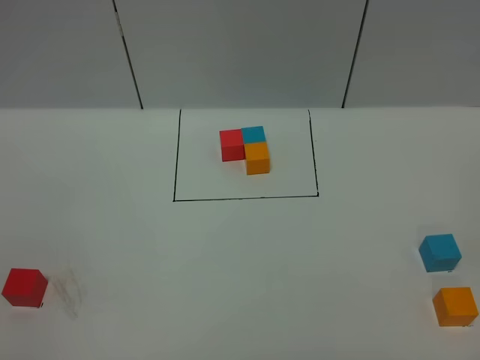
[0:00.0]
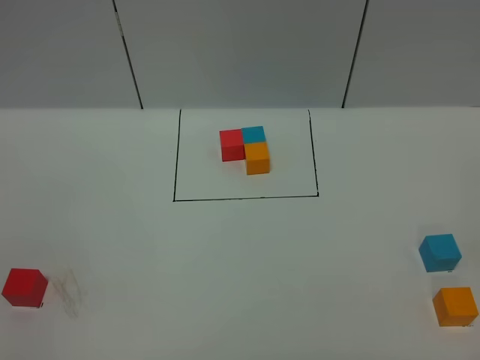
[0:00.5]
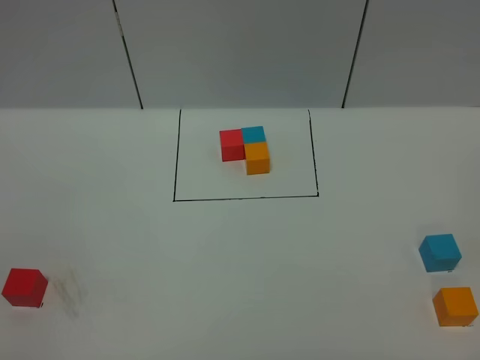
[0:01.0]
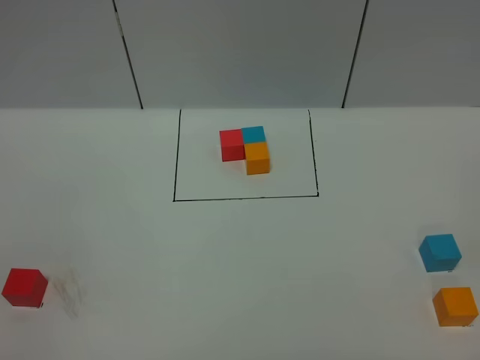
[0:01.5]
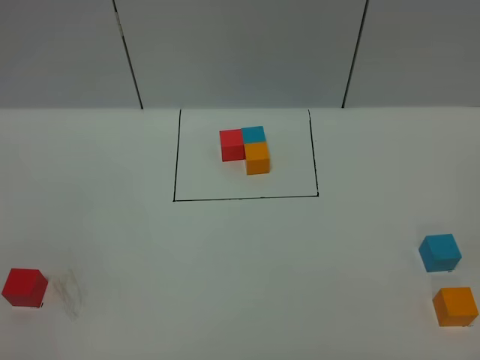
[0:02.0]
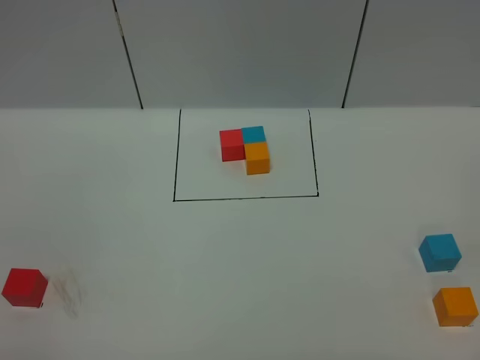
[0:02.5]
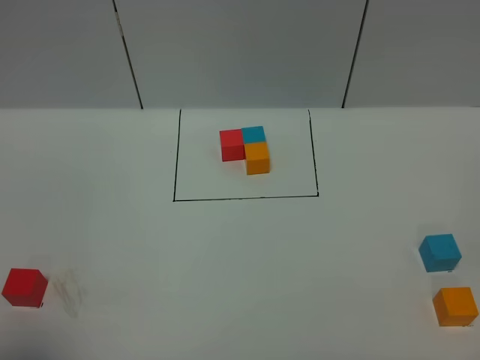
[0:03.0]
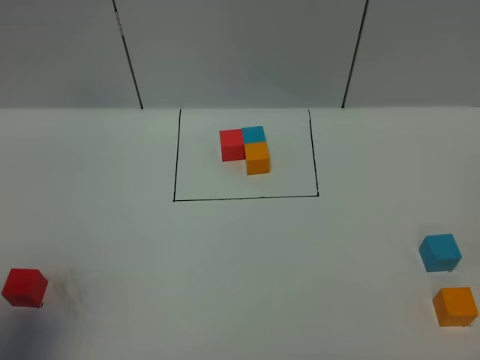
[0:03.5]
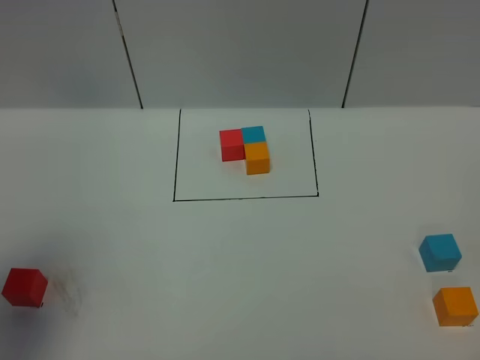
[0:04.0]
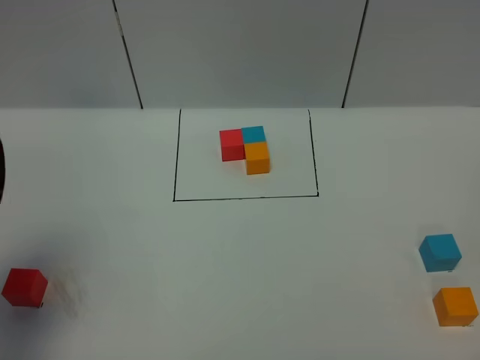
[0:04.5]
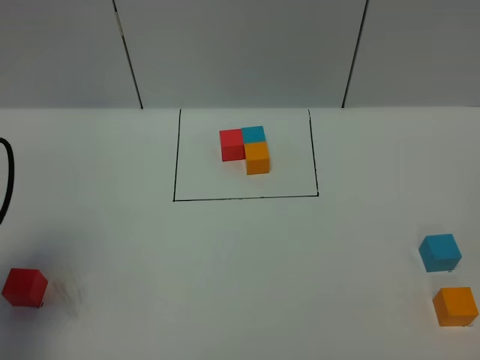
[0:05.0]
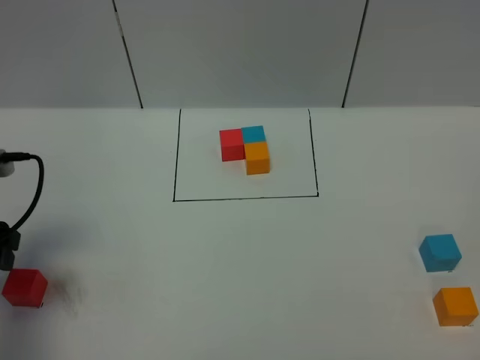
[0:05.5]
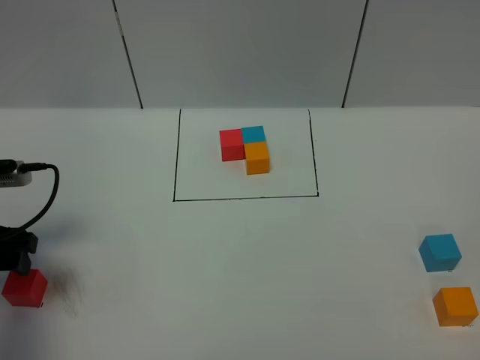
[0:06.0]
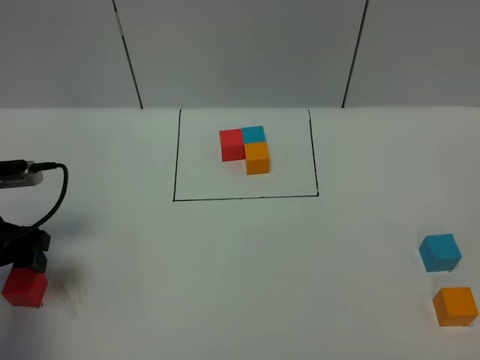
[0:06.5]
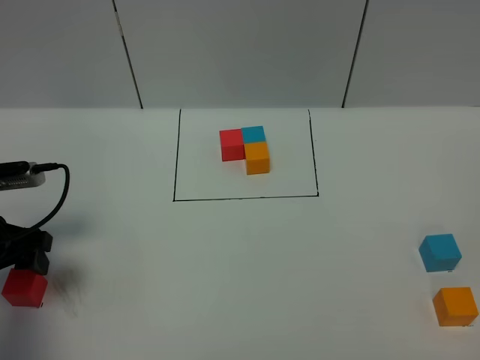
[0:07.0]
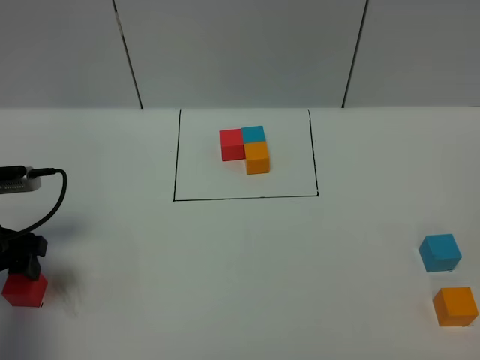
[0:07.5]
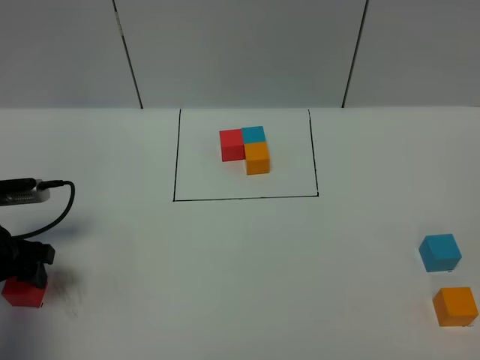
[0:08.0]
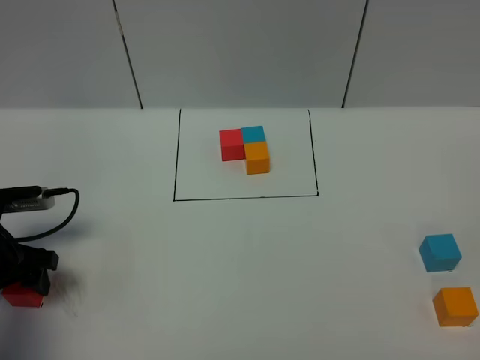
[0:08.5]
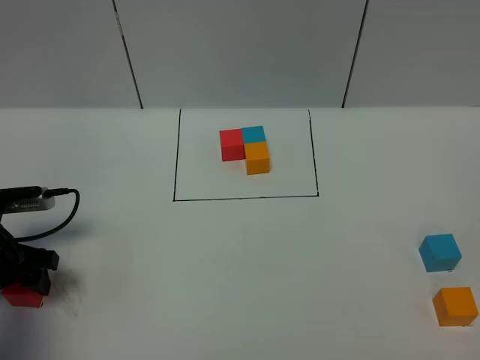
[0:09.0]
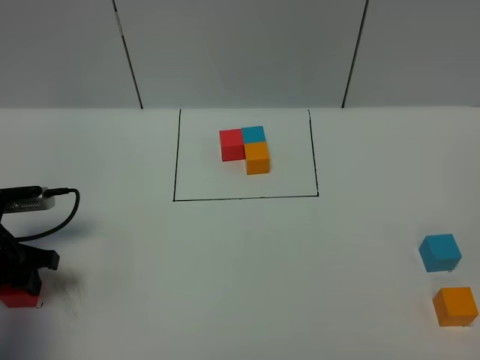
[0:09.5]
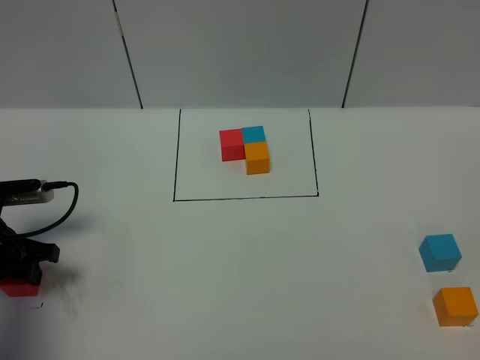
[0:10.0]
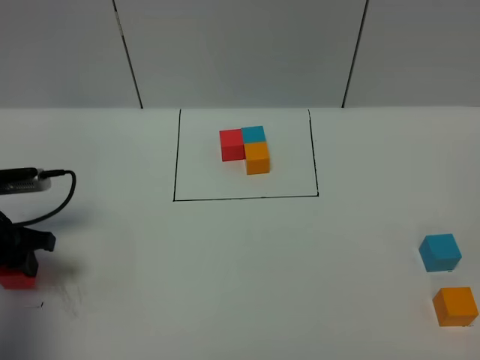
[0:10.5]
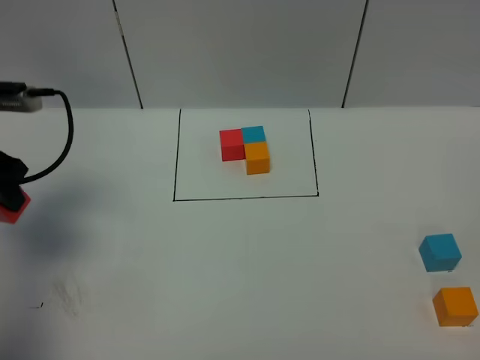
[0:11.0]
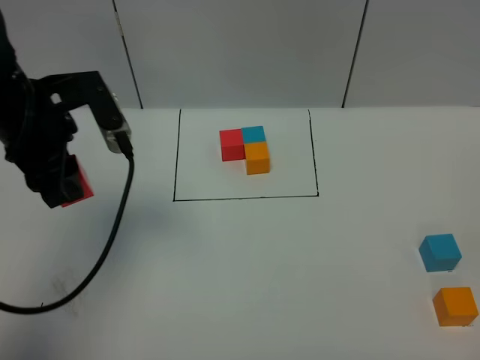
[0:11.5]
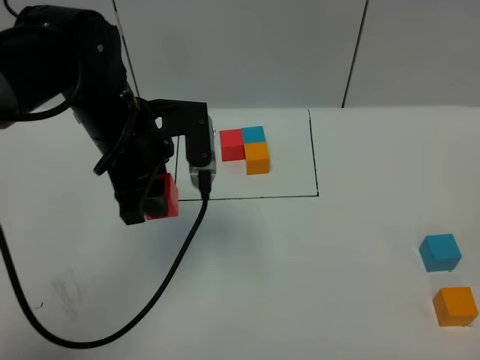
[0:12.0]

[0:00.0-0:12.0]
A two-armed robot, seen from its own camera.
Task of the whole recording: According to the building block template in front, assemble the scattered blocks together.
0:02.0 to 0:04.0: The left gripper travels forward by some 20 cm.
0:04.0 to 0:06.0: The left gripper heads downward and forward, covering some 20 cm.
0:06.0 to 0:08.0: The grippers stay close to where they were, moving slightly.
0:08.0 to 0:10.0: The left gripper closes up.
0:10.0 to 0:12.0: The left gripper moves to the right and upward, some 25 cm.

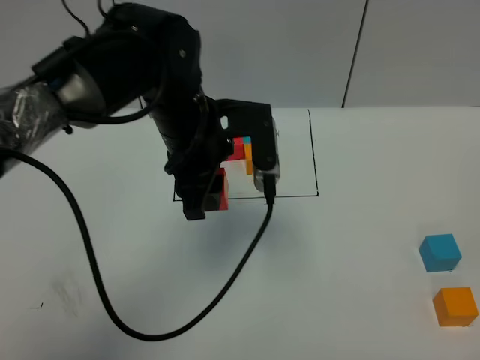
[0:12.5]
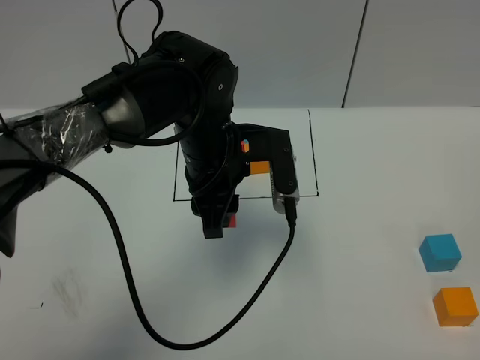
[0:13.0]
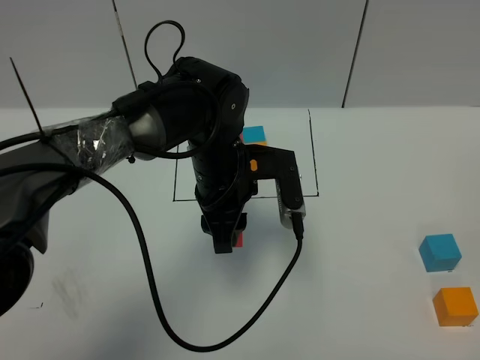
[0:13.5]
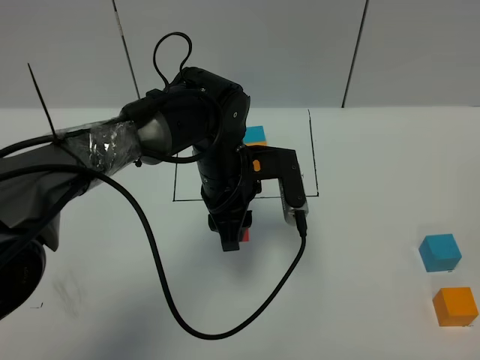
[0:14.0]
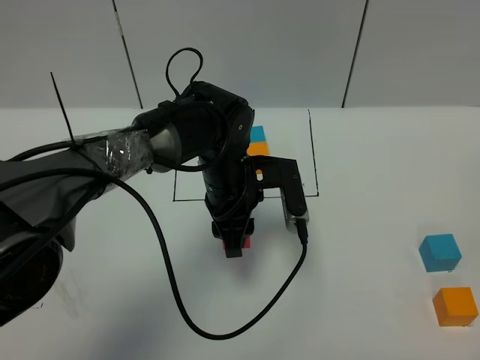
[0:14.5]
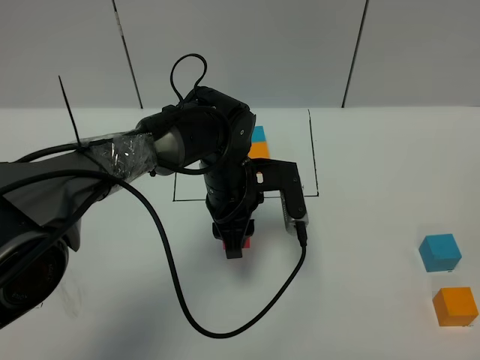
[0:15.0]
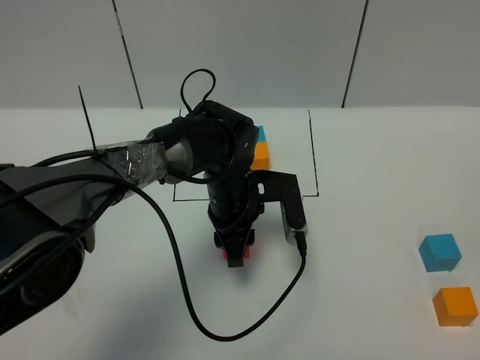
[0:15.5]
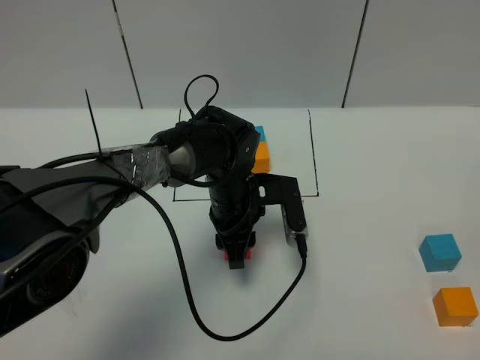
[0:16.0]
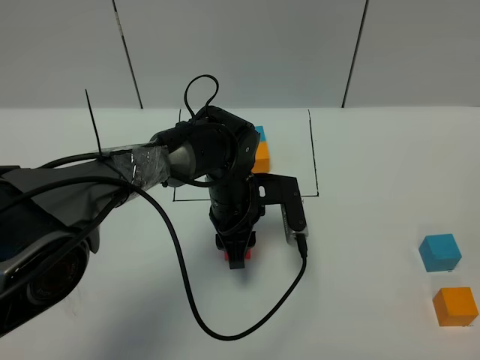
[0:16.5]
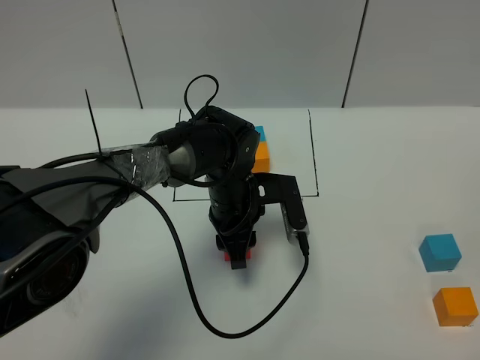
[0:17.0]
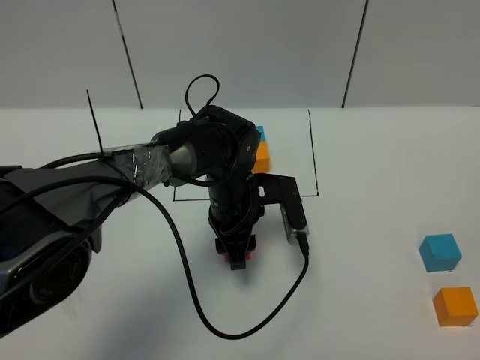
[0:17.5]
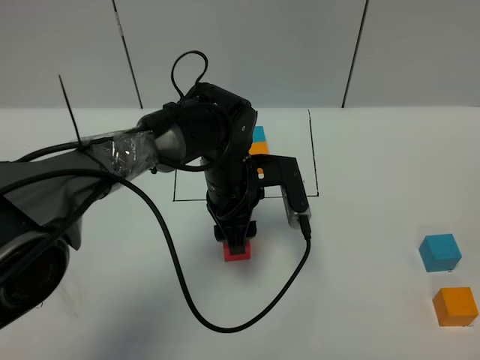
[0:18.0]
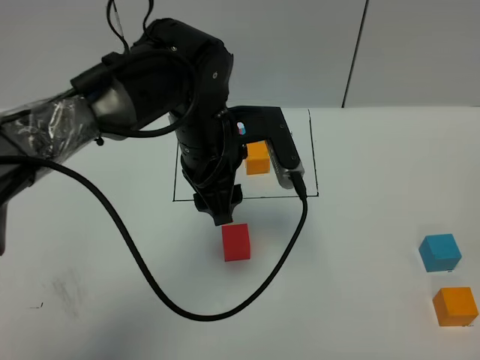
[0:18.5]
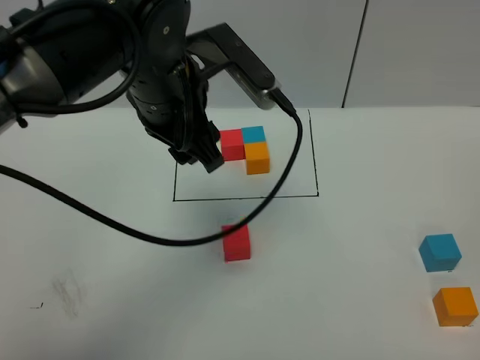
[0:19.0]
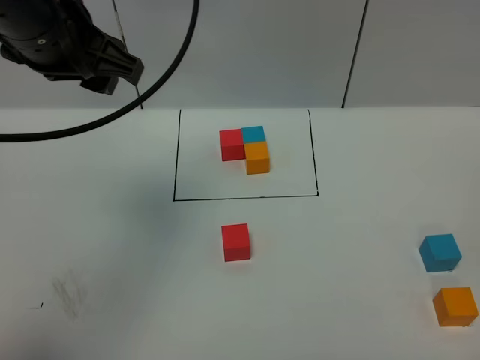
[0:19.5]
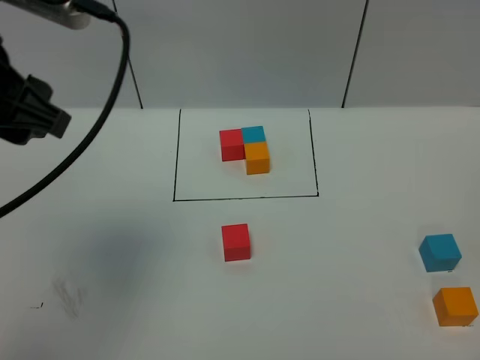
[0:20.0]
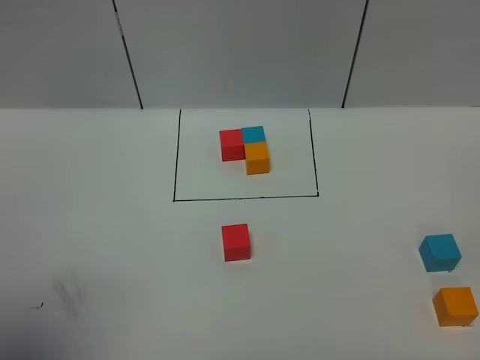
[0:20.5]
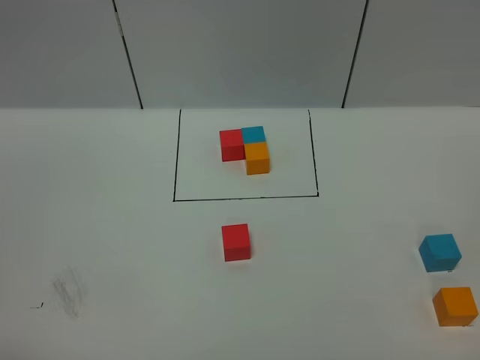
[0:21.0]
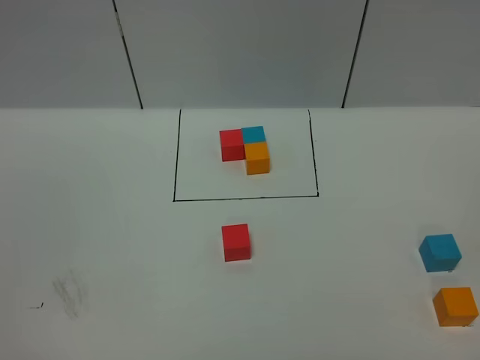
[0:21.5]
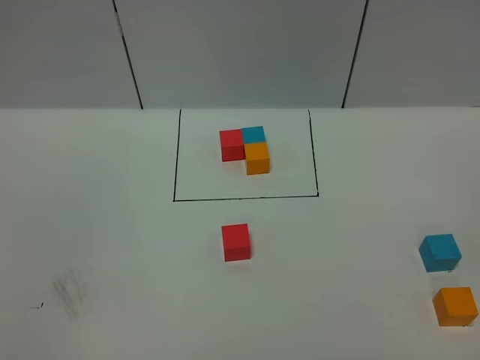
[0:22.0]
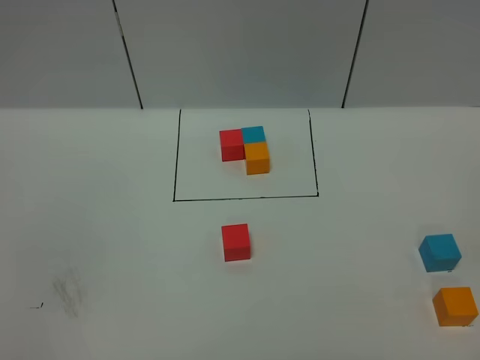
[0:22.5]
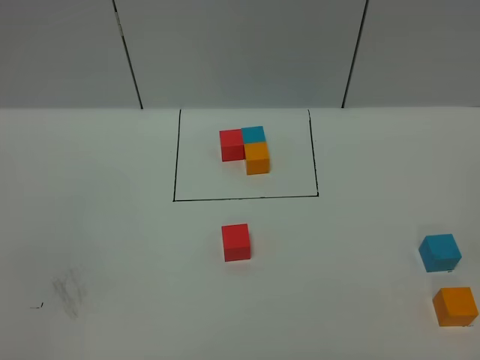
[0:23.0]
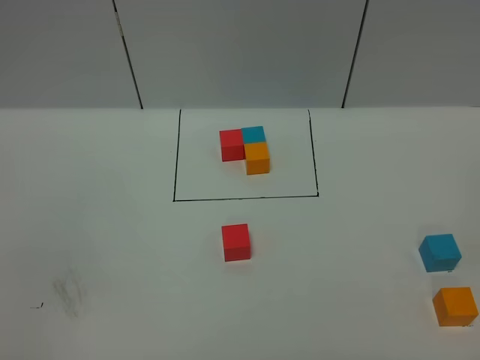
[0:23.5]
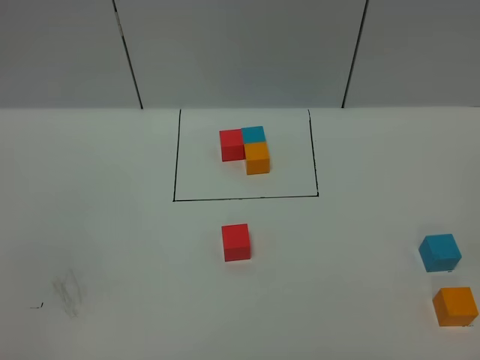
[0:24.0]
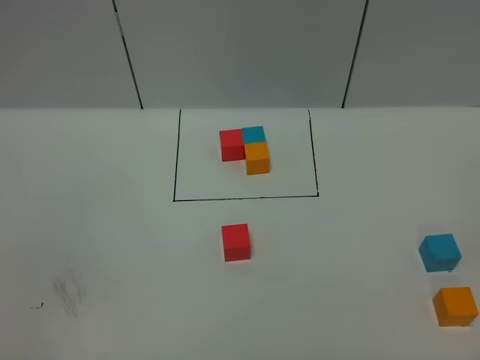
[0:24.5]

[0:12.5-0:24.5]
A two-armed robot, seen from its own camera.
Task of the whole recording: According to the building block template in front, assemble the scattered blocks together.
Step, 0:12.5 to 0:18.0: Put the red cube in the center of the table.
0:12.5 to 0:14.5: The left gripper is displaced downward by roughly 10 cm.
0:14.5 to 0:16.5: The grippers make only small movements.
0:16.5 to 0:18.5: The left gripper moves upward, roughly 15 cm, and opens.
0:18.5 to 0:20.5: The left gripper moves backward, to the left and upward, about 40 cm.
0:20.5 to 0:22.5: The left gripper is displaced downward and backward by approximately 20 cm.

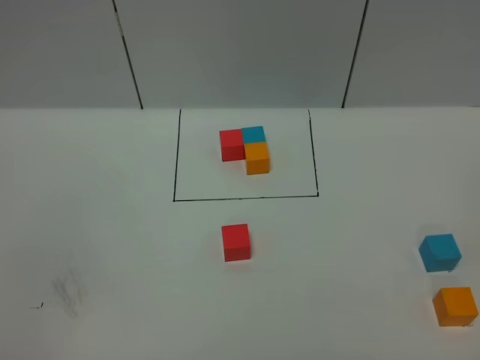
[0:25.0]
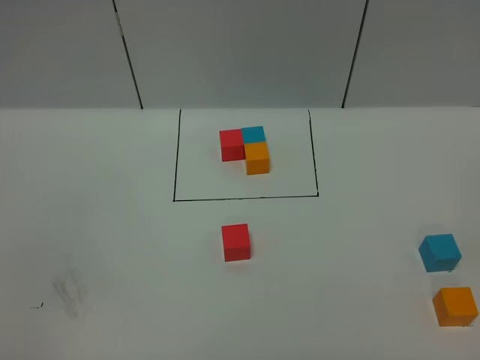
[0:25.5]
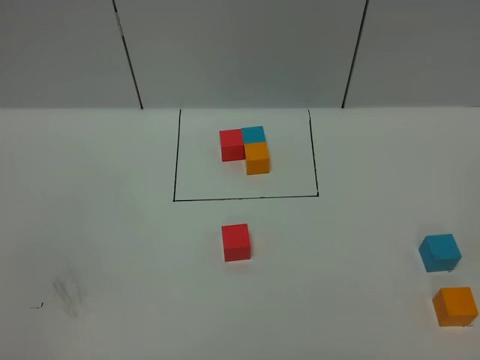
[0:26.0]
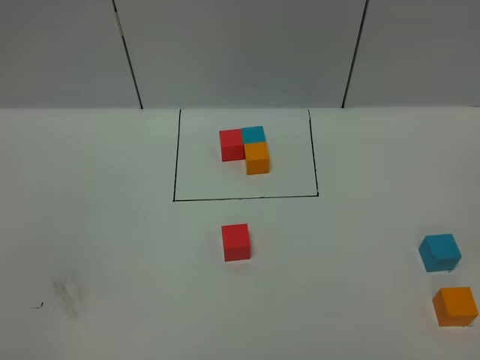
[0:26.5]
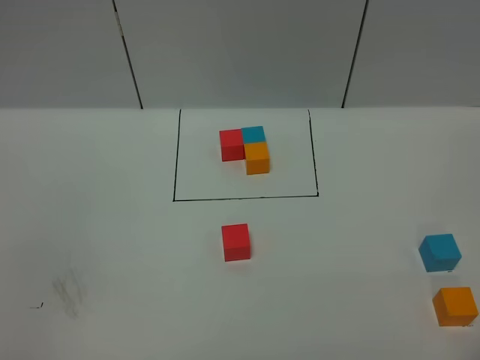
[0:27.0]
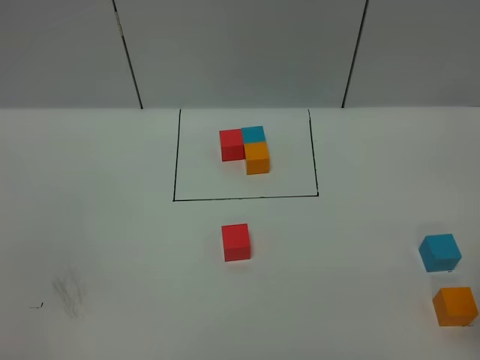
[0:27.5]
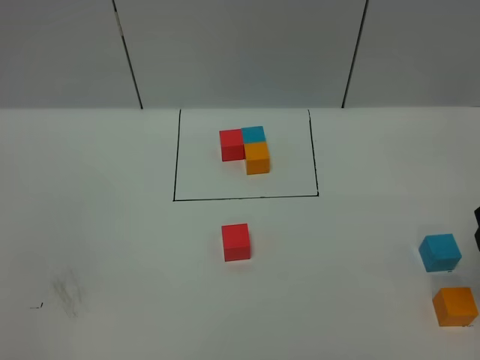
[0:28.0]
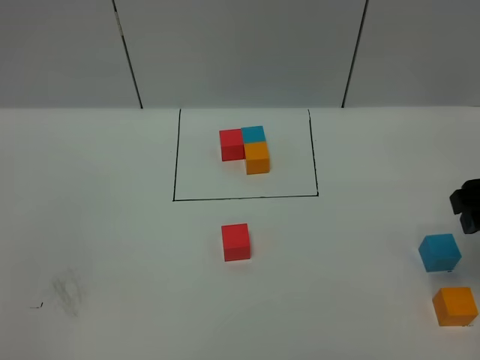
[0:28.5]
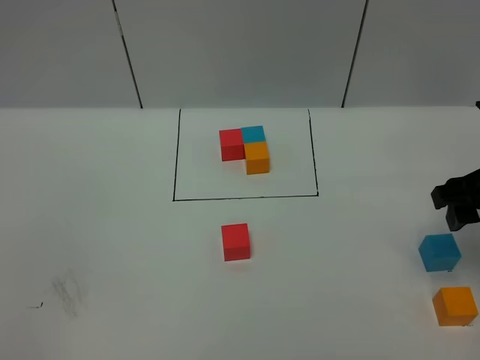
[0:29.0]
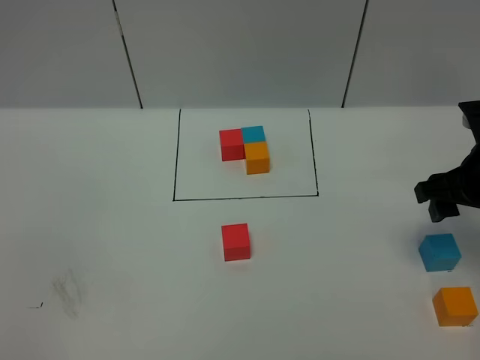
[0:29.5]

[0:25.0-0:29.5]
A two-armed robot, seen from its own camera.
Task of the whole recording: According to the building block template in front, assemble the scattered blocks together.
0:27.0 to 0:29.5: The right gripper shifts about 20 cm forward.
